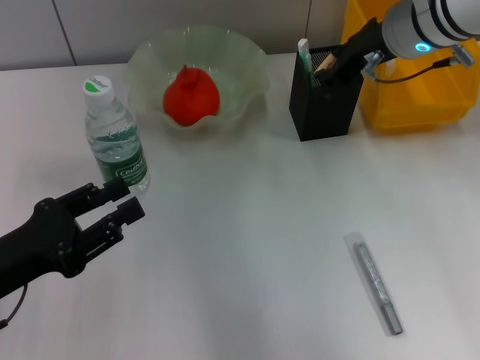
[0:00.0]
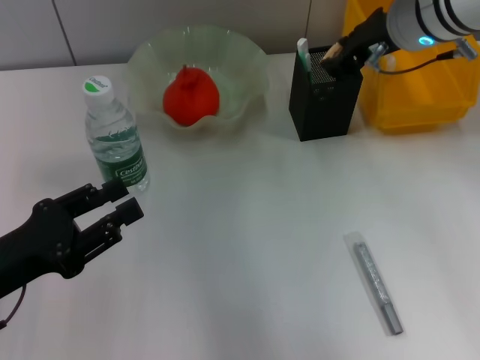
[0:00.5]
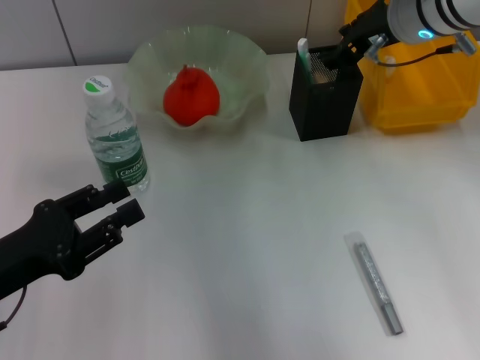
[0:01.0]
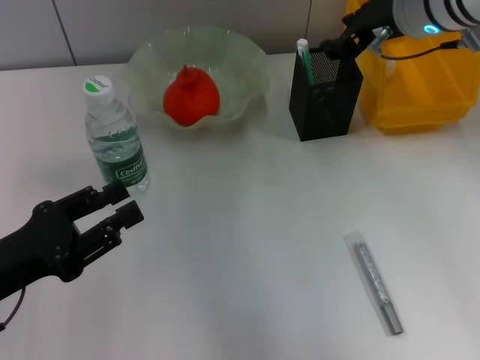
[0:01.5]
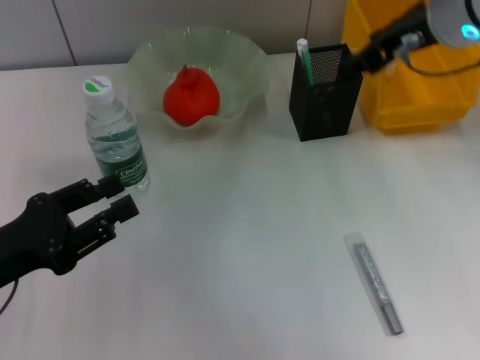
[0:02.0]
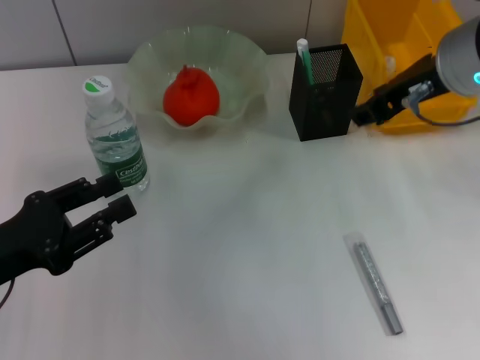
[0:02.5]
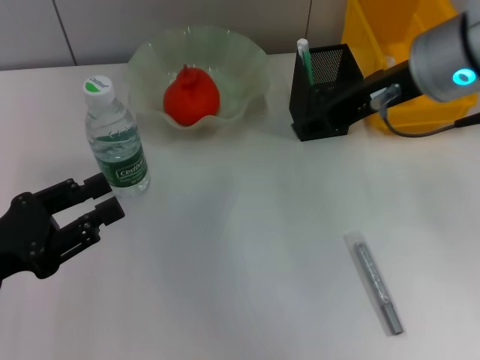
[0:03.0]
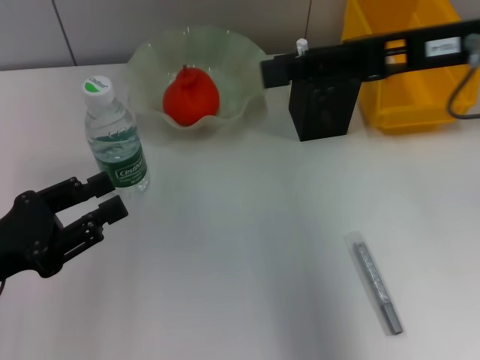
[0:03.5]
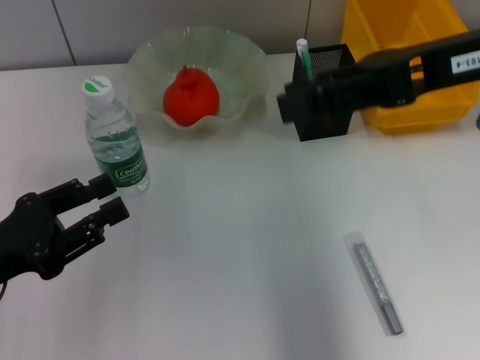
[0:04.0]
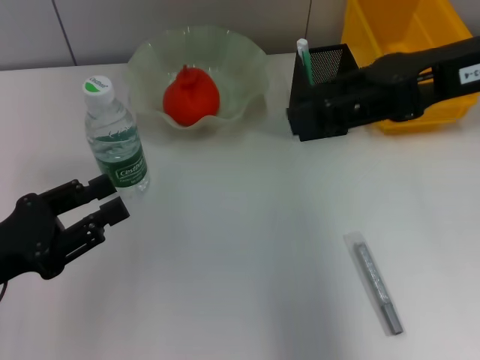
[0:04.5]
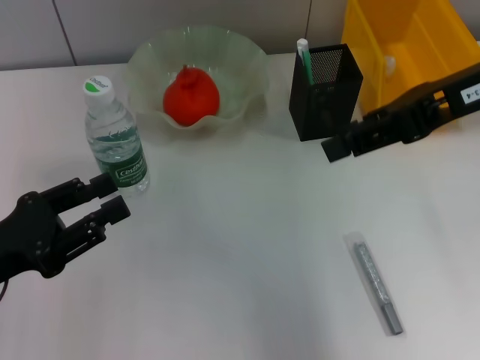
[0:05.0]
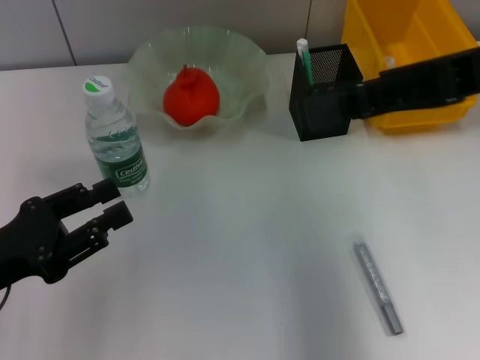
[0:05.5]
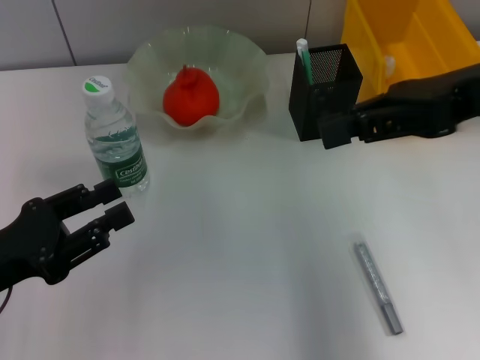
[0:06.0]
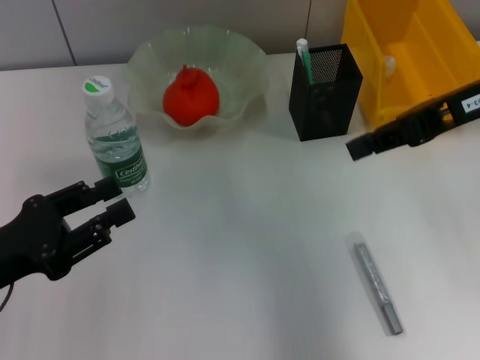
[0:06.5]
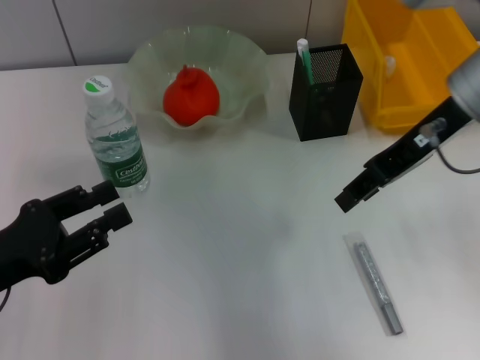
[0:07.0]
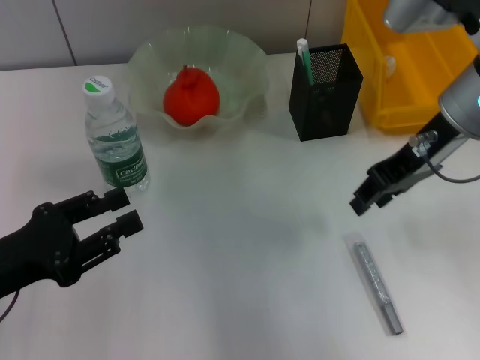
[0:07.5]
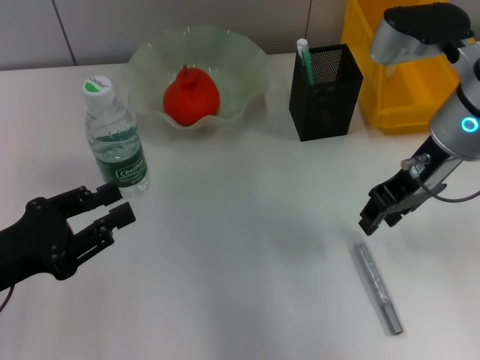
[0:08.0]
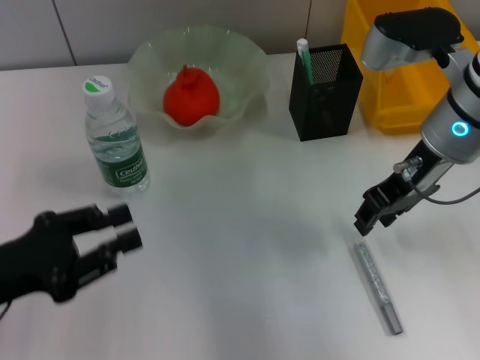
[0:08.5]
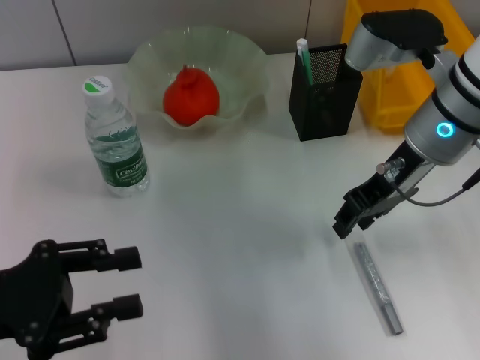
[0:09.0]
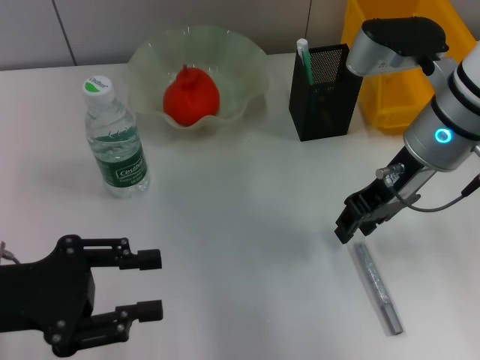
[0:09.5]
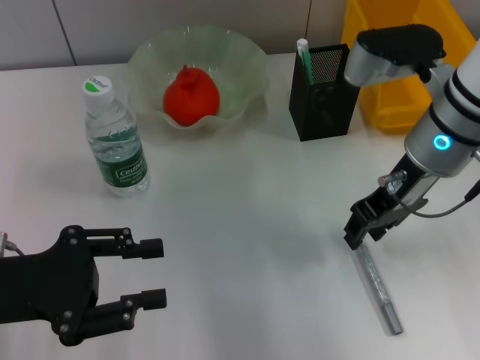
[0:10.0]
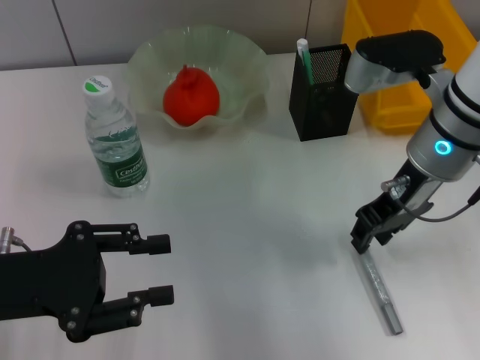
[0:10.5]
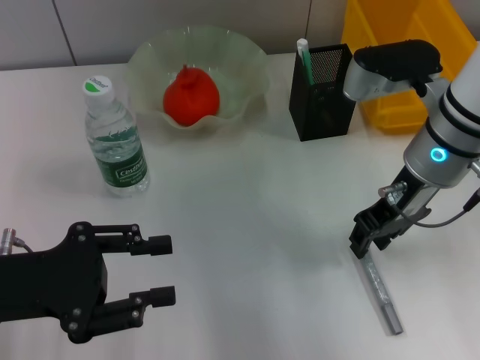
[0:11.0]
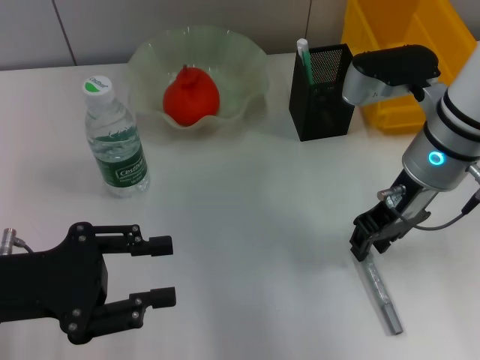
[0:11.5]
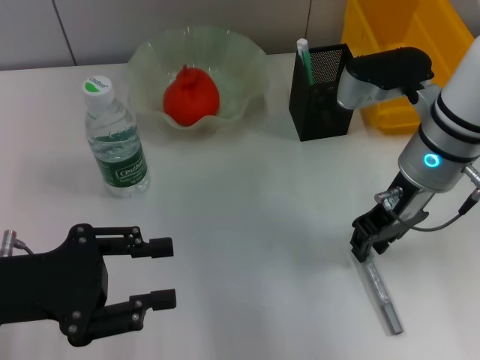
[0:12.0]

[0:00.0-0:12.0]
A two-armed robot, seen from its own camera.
0:00.0 to 0:02.0: The right gripper travels backward and upward by some 5 cm.
0:02.0 to 0:04.0: The right gripper shifts approximately 5 cm backward.
0:04.0 to 0:06.0: The right gripper closes.
0:06.0 to 0:08.0: The right gripper goes about 5 cm downward, and opens up.
0:10.0 to 0:12.0: The grippers make only small movements.

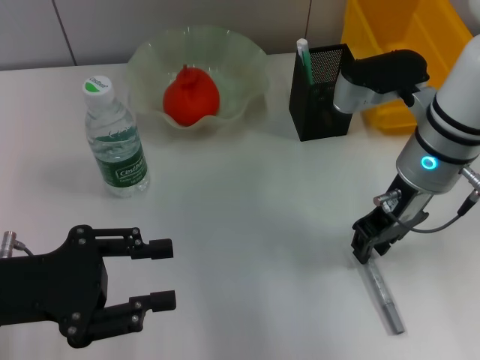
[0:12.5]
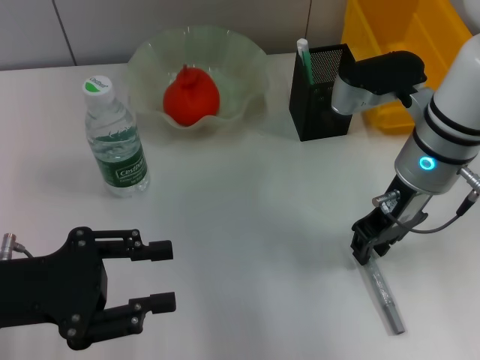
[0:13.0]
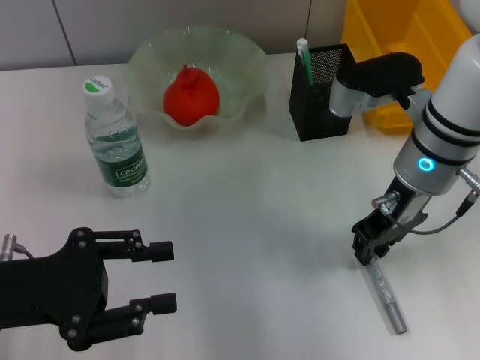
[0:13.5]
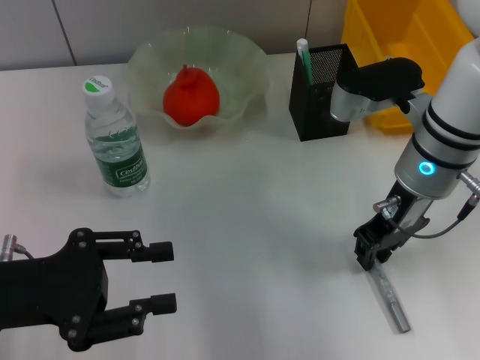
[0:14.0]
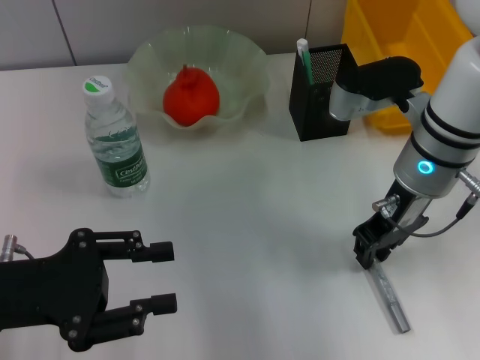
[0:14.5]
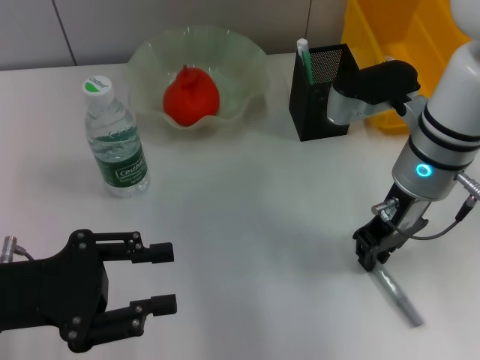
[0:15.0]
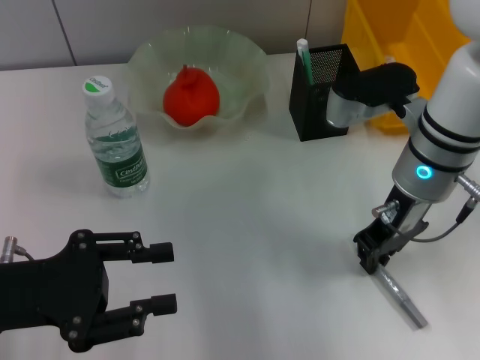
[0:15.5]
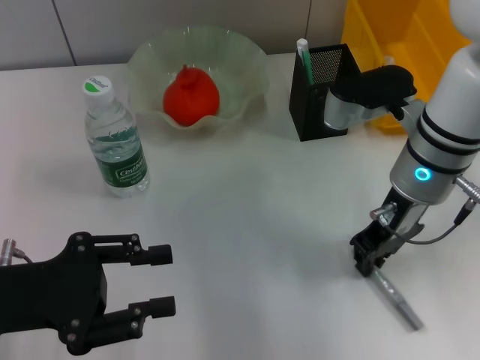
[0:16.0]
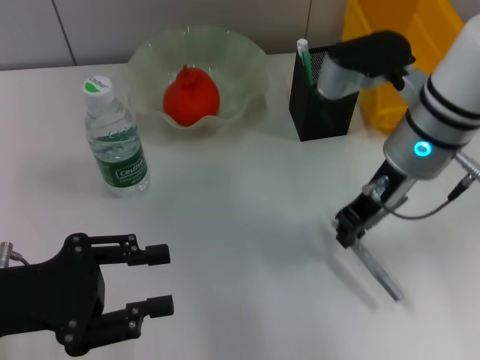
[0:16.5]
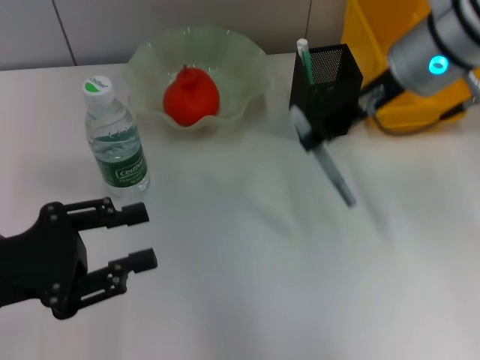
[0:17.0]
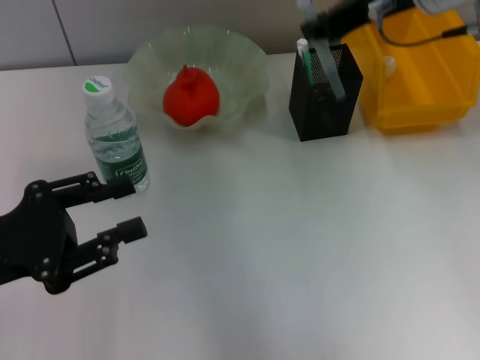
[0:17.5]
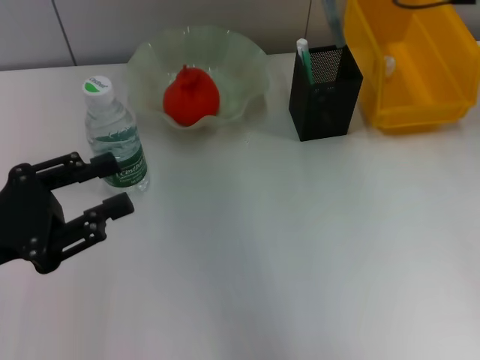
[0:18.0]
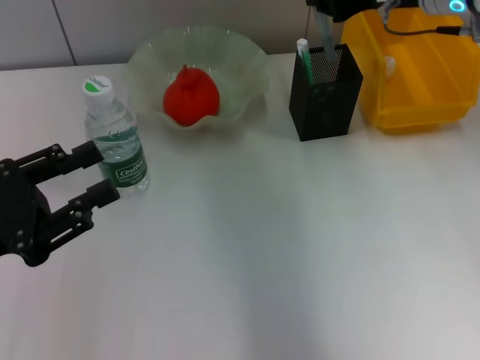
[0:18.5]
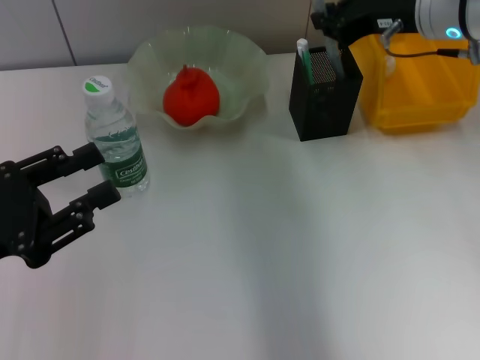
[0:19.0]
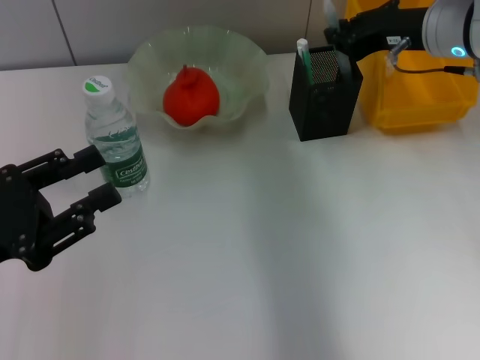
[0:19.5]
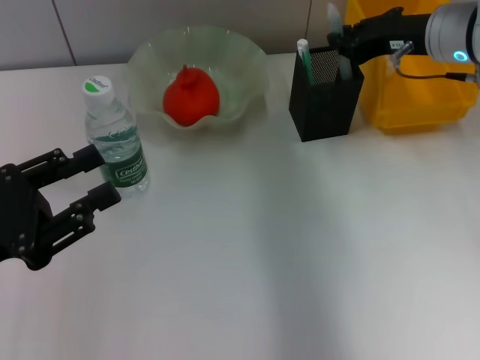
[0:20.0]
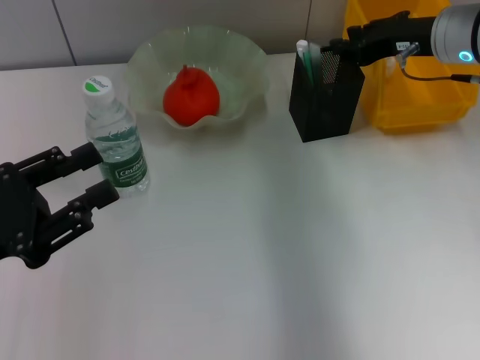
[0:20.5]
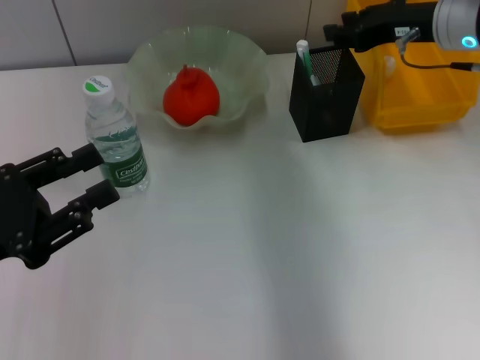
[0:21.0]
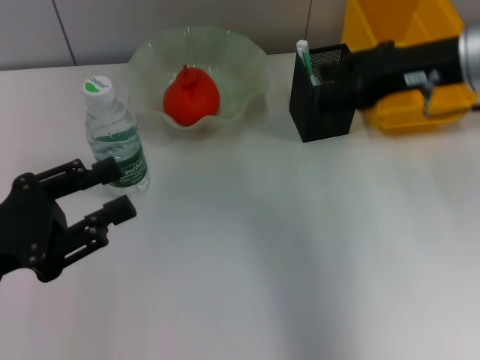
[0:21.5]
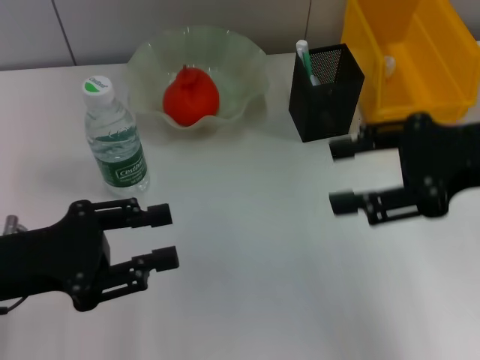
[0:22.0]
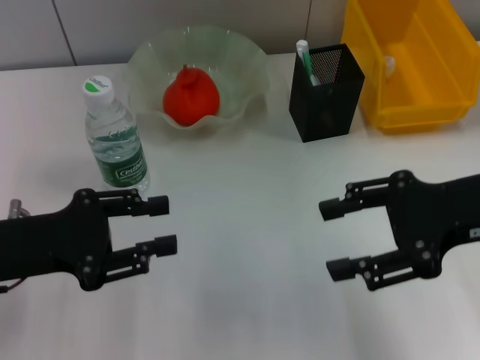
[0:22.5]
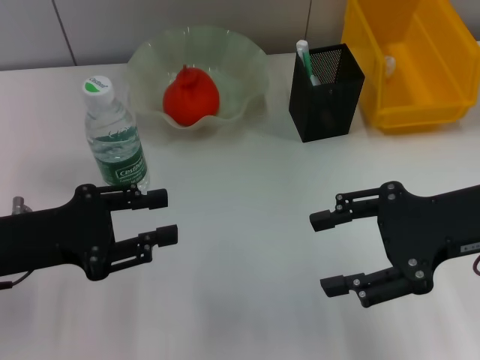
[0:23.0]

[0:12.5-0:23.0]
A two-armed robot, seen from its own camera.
Step, 0:12.5 to 0:15.5: Grab the gray glue with the right hand.
Step, 0:16.0 to 0:20.5: Place the gray glue into the pen holder with the right hand.
0:12.5 to 0:14.5: Neither gripper changes place.
0:14.5 to 0:16.5: The grippers make only small movements.
0:16.5 to 0:19.0: The right gripper shifts approximately 10 cm forward and to the right, and moves approximately 10 cm upward and comes back.
0:19.0 to 0:21.0: The right gripper opens its fingers.
0:21.0 to 0:23.0: The right gripper heads backward, covering roughly 15 cm, and opens.
